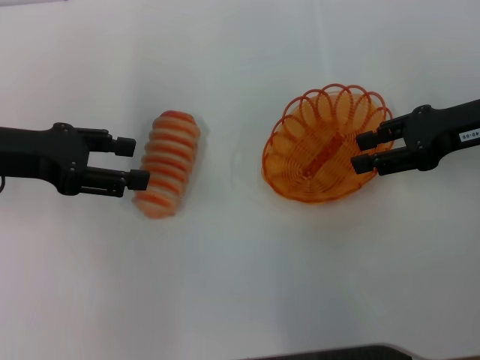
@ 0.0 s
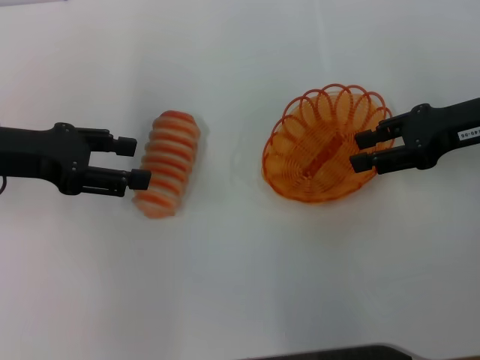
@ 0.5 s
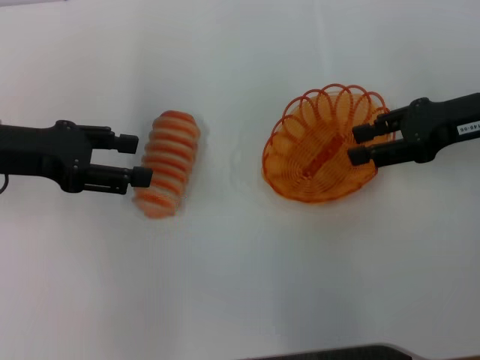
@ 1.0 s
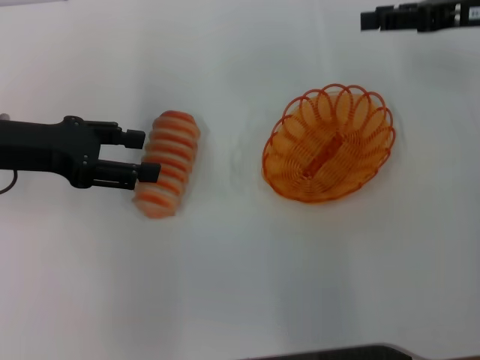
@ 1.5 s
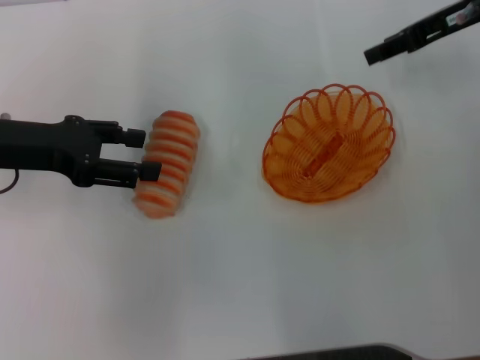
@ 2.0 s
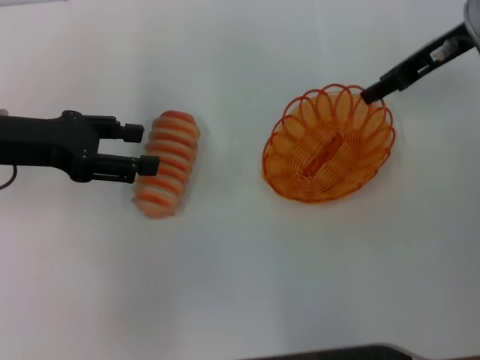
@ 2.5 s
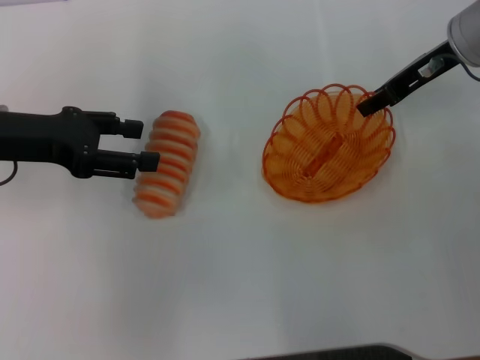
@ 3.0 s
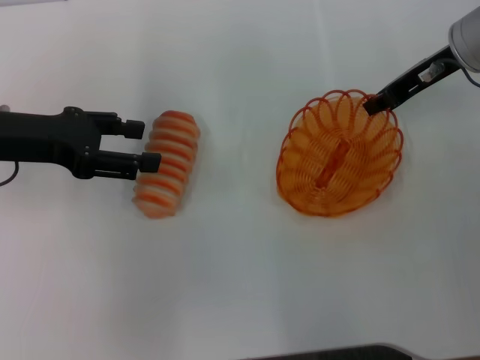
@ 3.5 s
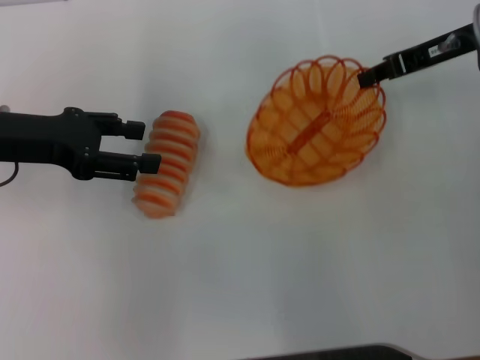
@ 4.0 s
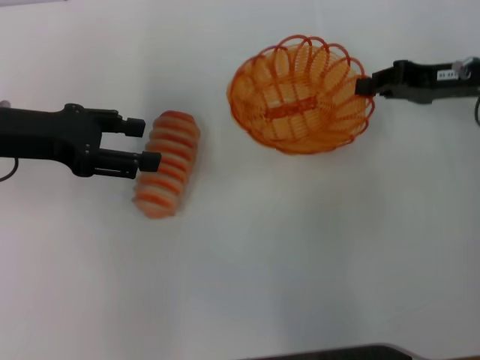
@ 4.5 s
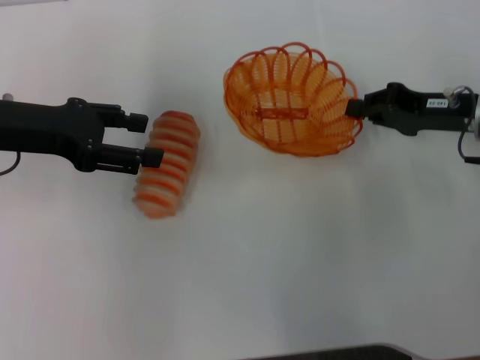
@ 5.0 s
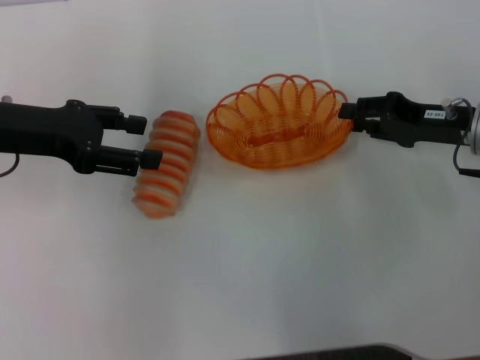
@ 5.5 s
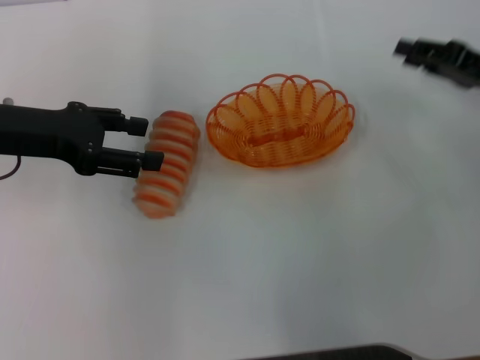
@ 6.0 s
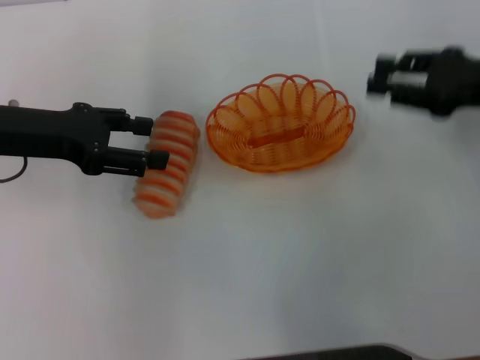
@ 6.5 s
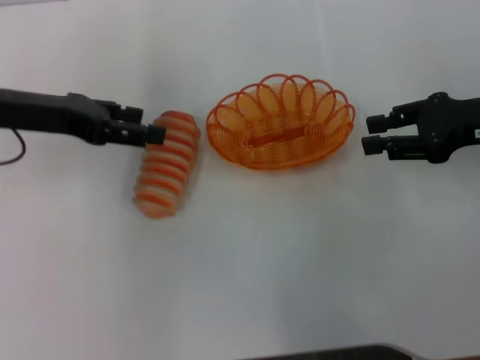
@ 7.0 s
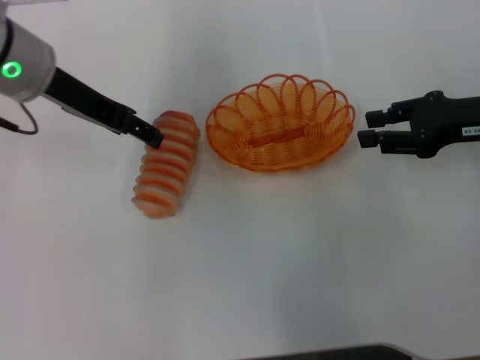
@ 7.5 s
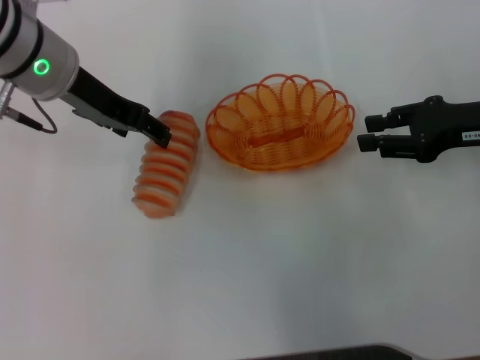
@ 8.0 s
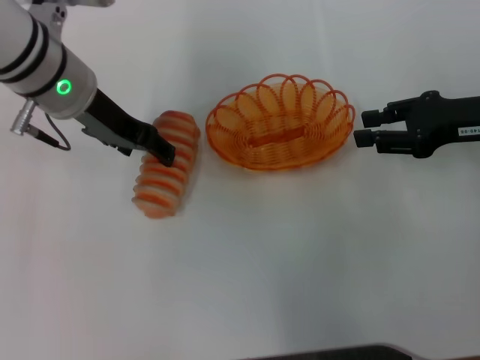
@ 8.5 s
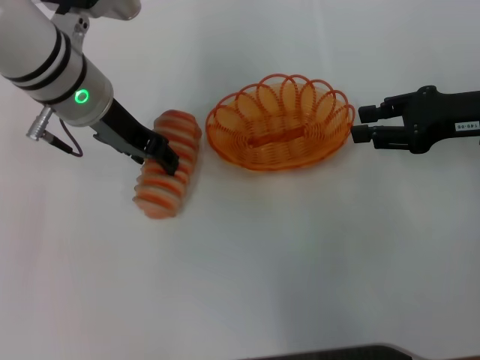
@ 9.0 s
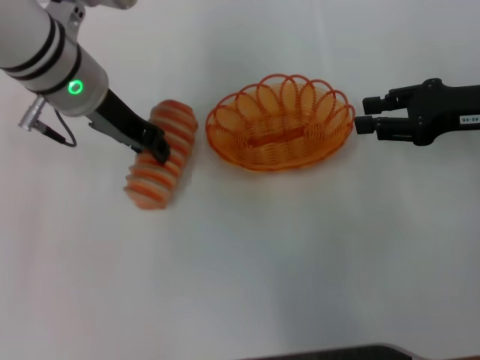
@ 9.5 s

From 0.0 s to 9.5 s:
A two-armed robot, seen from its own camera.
Step, from 0.0 s to 3.5 s: Pick up the basket with the right gripper.
Step, from 4.0 s to 5.5 s: Place the basket in the center of view with the right gripper.
Step, from 6.0 s to 9.0 s: Pick up the long bread with the left gripper.
From 0.0 s to 2.0 s: The right gripper shifts some 10 cm forward and upward.
From 2.0 s to 4.0 s: The right gripper closes up.
From 4.0 s to 5.5 s: The right gripper heads downward and backward, covering approximately 10 cm.
From 5.5 s to 7.5 s: The right gripper heads upward, covering roughly 5 cm, and opens its fingers. The left gripper shifts approximately 5 cm to the right.
From 7.5 s to 9.5 s: The left gripper changes place by roughly 5 cm, and closes its fingers.

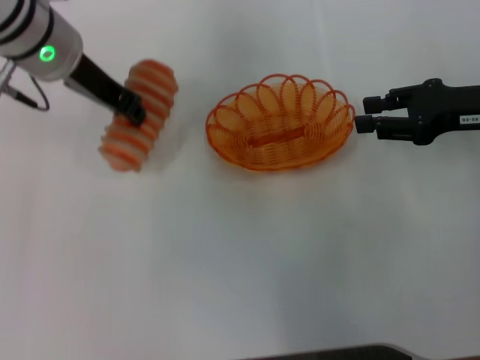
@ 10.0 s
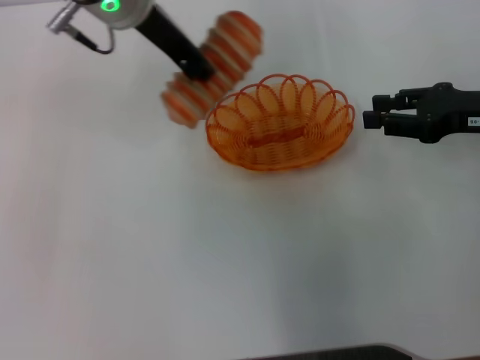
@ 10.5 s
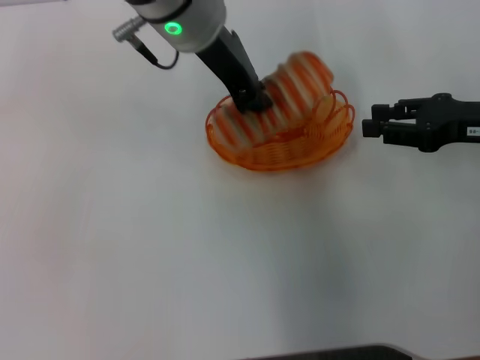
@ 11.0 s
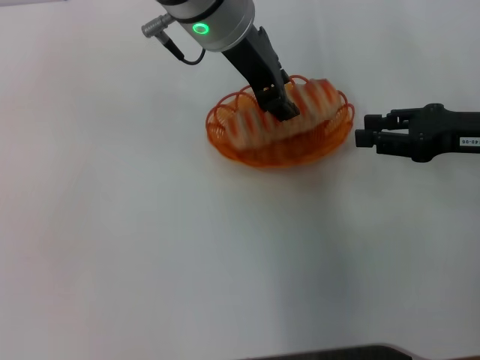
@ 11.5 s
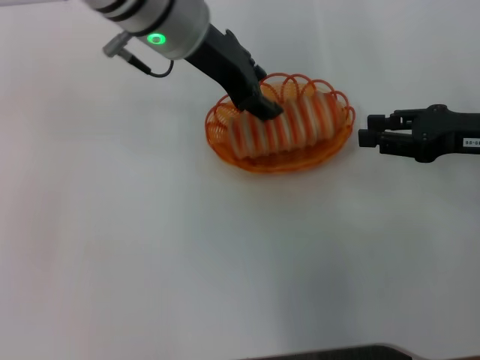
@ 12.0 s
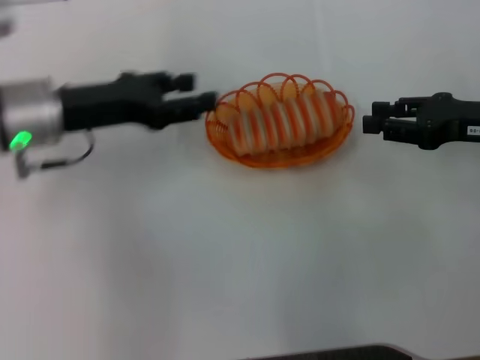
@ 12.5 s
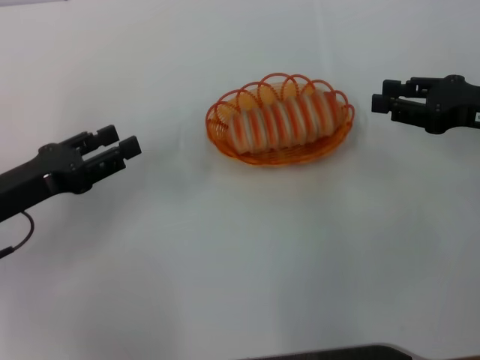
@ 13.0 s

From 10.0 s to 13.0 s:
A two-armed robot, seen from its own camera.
Step, from 10.0 s to 11.5 s: Place the long bread into the basket with the left gripper.
From 10.0 s to 11.5 s: The left gripper travels to the right by some 15 cm.
From 11.5 s to 13.0 s: The left gripper goes some 35 cm to the left, downward and backward, and opens its fingers.
